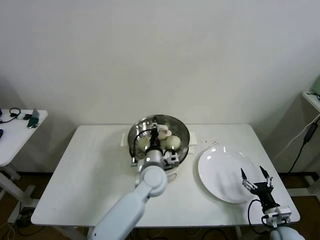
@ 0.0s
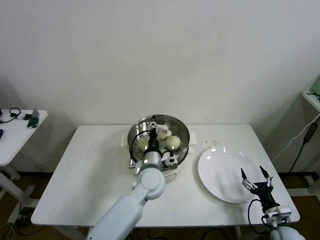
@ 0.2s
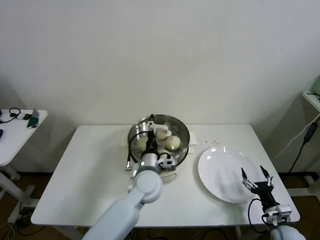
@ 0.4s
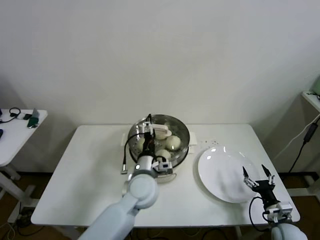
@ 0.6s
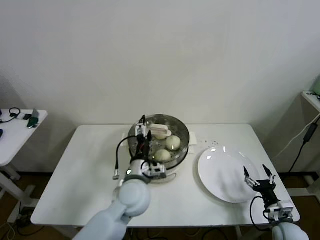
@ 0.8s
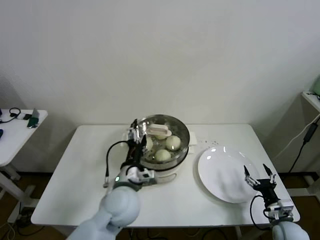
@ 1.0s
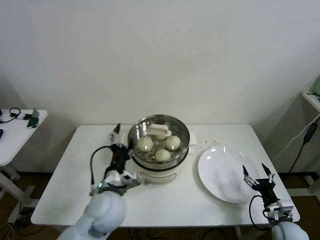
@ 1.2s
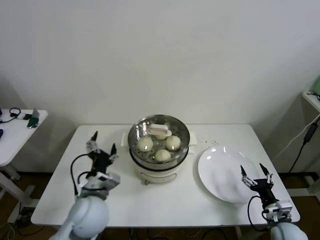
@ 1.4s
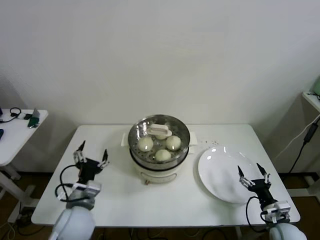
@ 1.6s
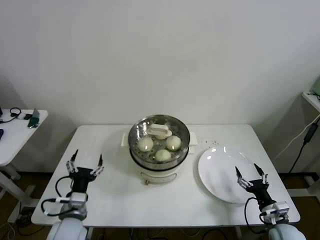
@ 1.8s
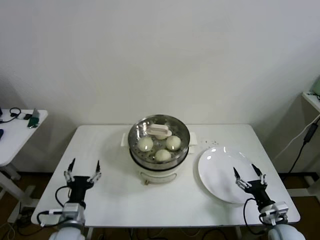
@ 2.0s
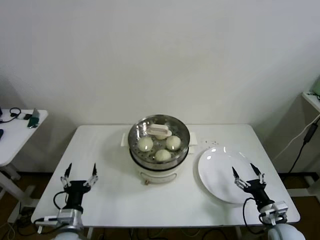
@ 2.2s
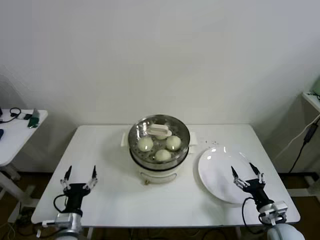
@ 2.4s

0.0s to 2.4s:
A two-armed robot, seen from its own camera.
0.0s to 1.2s: The left gripper shifts about 15 cm to the left and backward, and opens up.
1.2s to 2.4s: The left gripper is displaced to the left, downward and backward by approximately 20 cm.

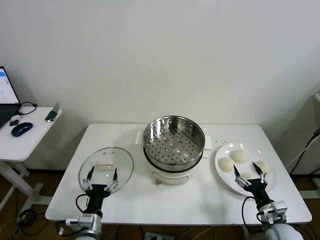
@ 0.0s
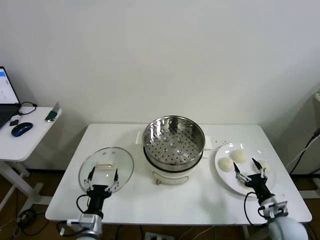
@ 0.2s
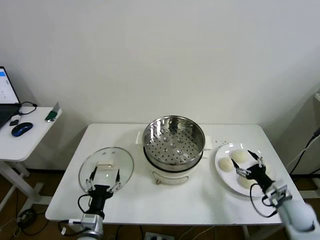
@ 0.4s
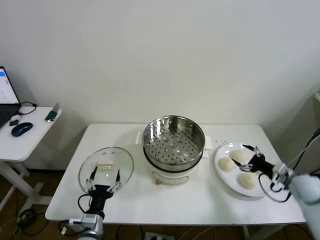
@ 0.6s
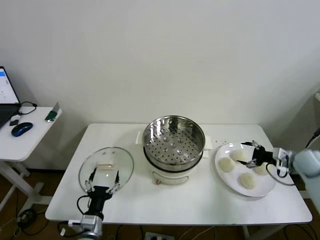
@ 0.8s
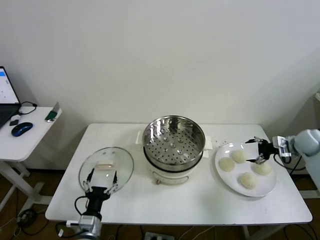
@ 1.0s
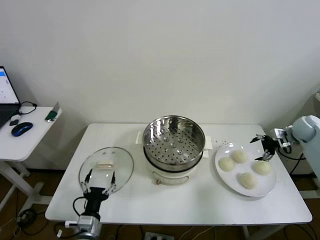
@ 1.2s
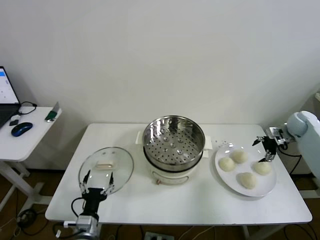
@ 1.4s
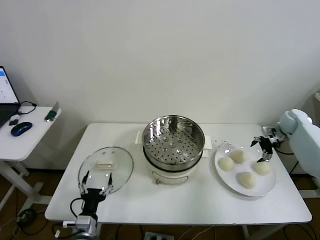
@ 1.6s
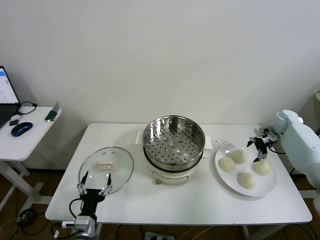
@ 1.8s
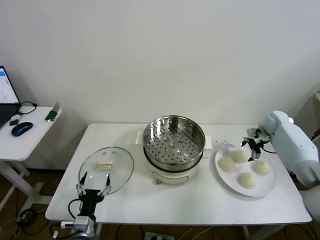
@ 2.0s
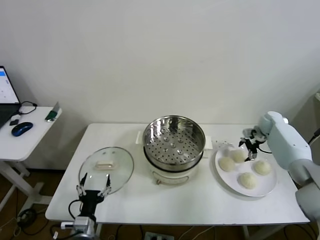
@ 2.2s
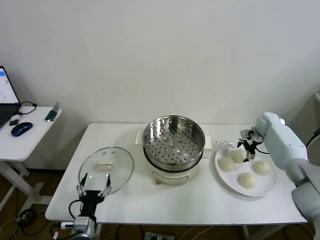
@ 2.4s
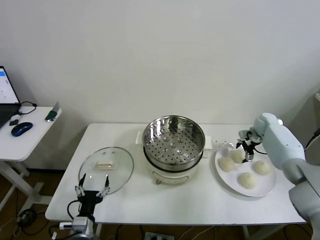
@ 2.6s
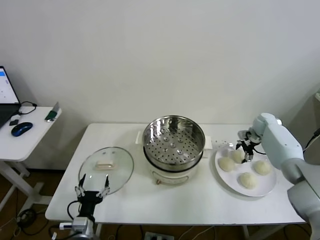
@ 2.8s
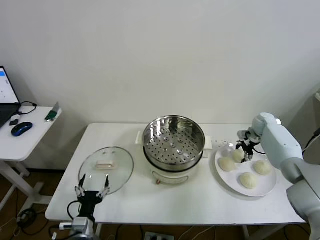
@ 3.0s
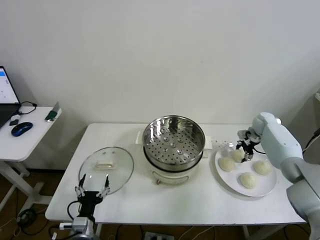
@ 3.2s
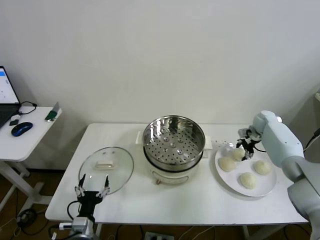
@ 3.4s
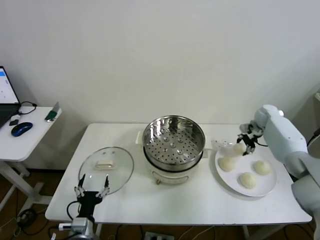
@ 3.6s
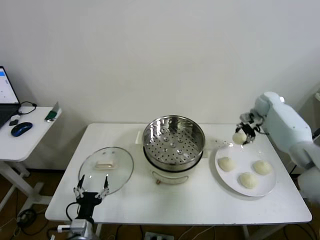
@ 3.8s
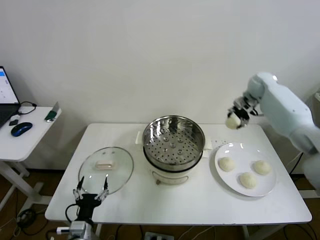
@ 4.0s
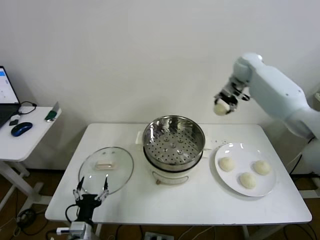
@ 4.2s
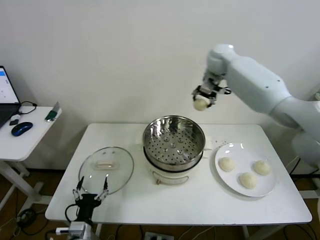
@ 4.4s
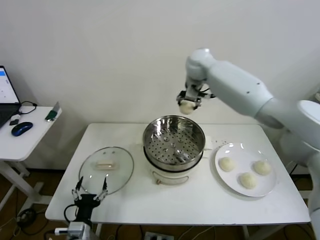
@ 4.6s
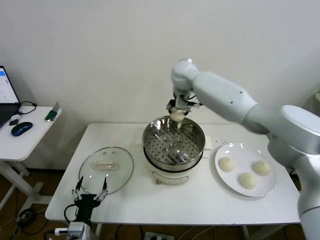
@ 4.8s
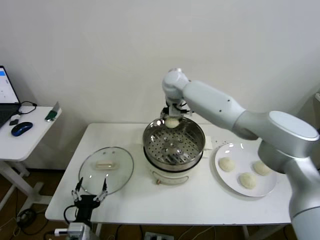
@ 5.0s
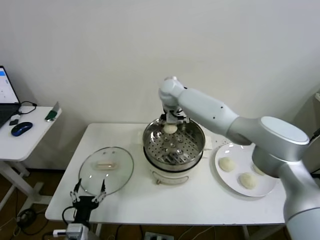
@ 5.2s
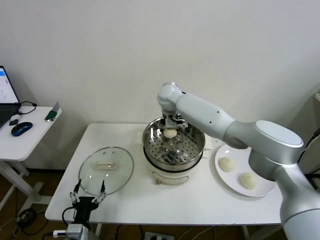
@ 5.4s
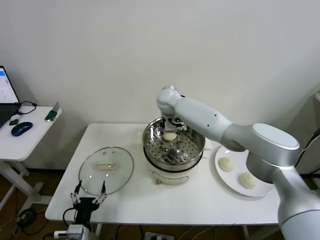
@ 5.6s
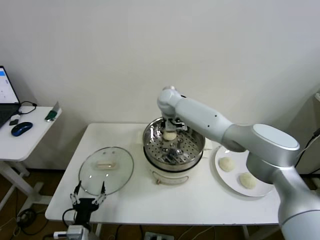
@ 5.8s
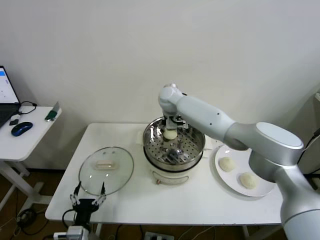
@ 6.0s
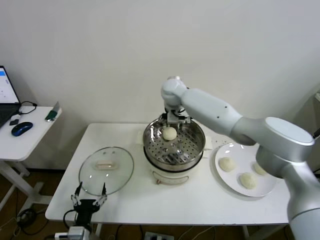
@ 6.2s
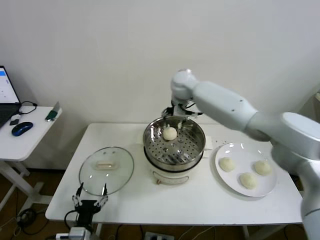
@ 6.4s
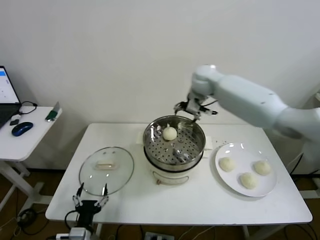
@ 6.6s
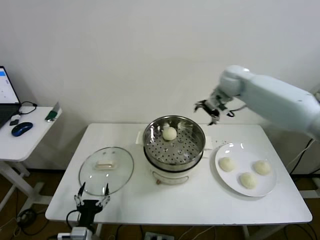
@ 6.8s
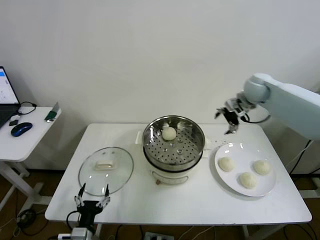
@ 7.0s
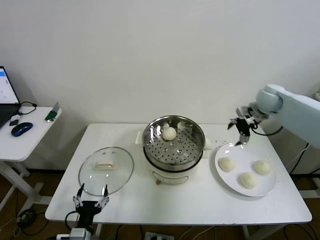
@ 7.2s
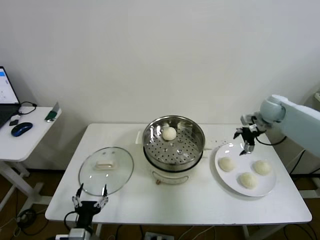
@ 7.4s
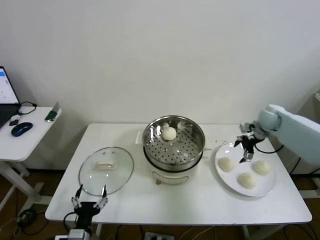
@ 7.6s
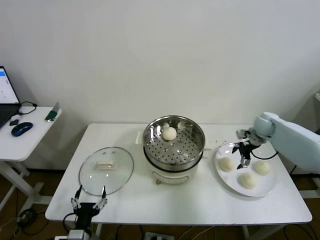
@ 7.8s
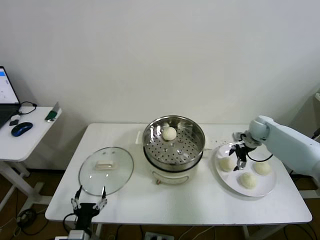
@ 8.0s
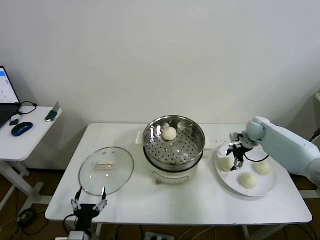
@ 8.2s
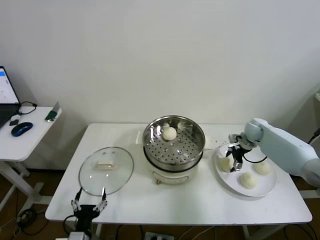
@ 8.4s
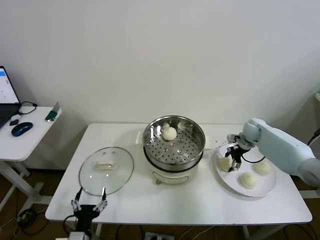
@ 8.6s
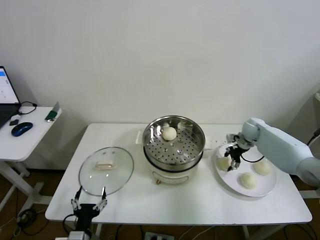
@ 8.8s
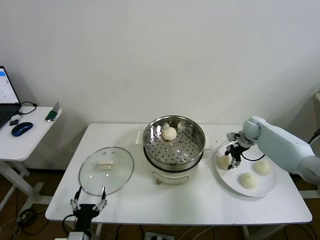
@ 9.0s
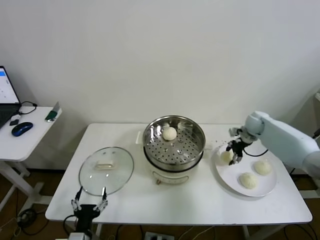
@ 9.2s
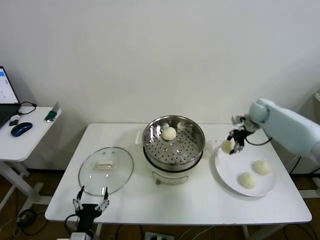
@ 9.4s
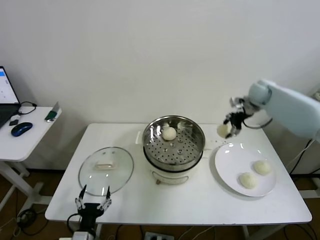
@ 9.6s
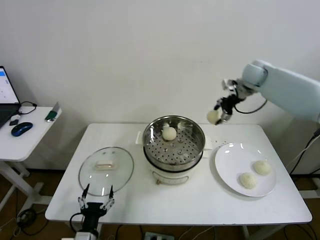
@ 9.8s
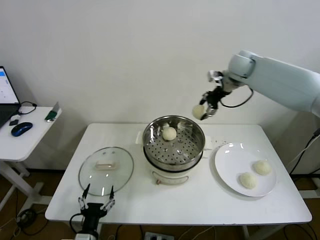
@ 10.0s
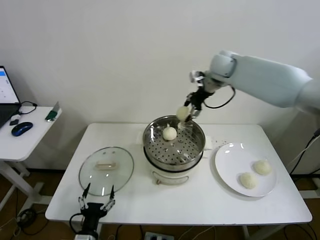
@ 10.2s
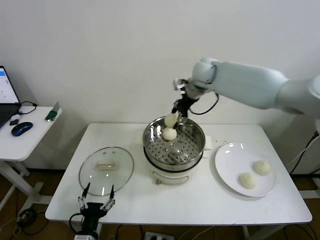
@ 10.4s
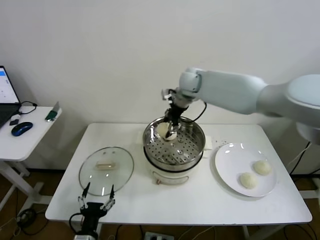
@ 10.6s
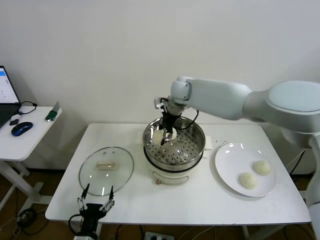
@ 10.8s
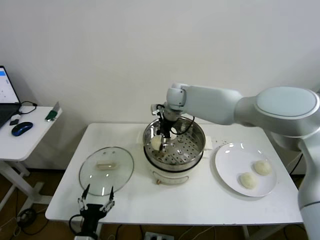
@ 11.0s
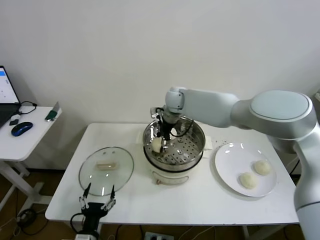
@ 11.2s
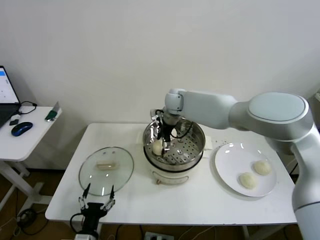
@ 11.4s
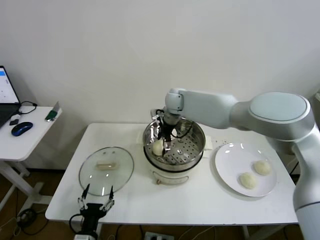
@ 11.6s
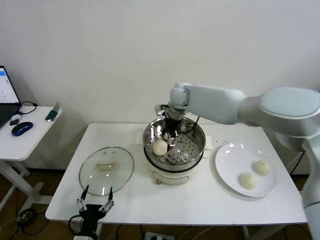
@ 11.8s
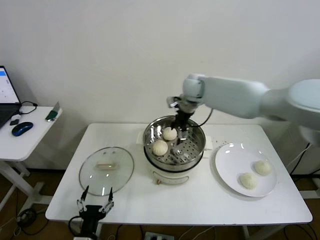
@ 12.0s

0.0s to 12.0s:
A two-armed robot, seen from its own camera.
Step, 0.0s to 3.0s: Grasp the baozi in the plate with right gripper.
Step, 3.2s to 6.0s: Place the baozi on the steamer with right gripper.
Step, 6.2s to 8.8s: Grasp the baozi in the plate with right gripper.
Step, 9.0s to 11.4s: Place the baozi on the steamer with right gripper.
1.6s to 3.0s: The right gripper is displaced to the left by approximately 5 cm, and closes.
3.0s to 4.4s: The right gripper heads upward and to the left, covering roughly 40 cm.
4.4s to 6.0s: The right gripper travels to the left and downward by roughly 20 cm, and opens up.
6.0s to 7.6s: The right gripper moves to the right, some 40 cm.
7.6s to 9.0s: The right gripper travels downward by some 5 cm, and closes.
9.0s to 10.4s: The right gripper is displaced to the left and upward by about 35 cm.
10.4s to 12.0s: The right gripper opens its fingers.

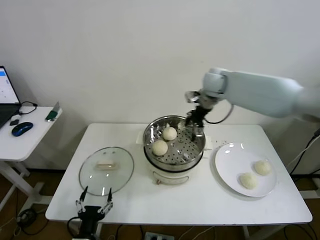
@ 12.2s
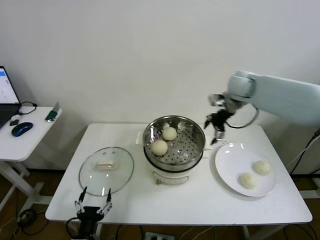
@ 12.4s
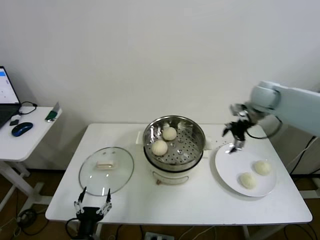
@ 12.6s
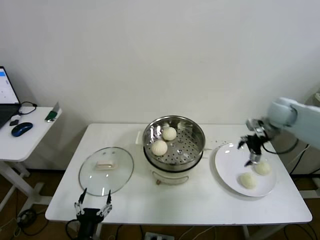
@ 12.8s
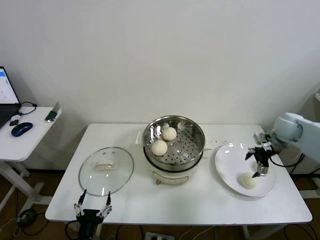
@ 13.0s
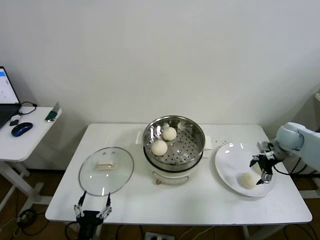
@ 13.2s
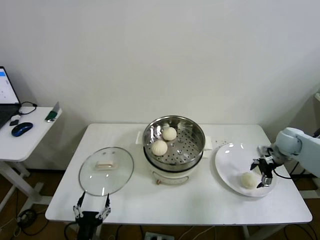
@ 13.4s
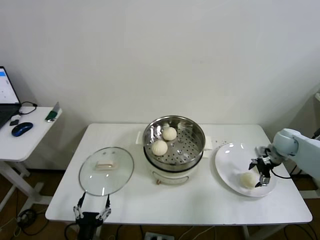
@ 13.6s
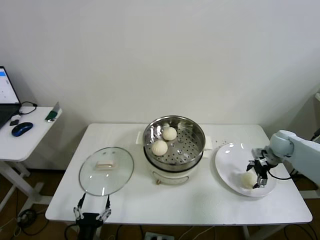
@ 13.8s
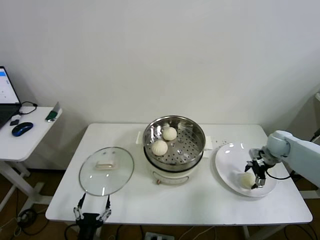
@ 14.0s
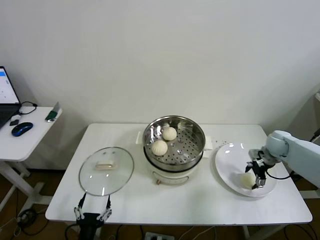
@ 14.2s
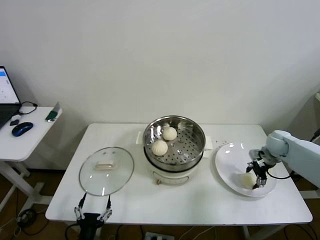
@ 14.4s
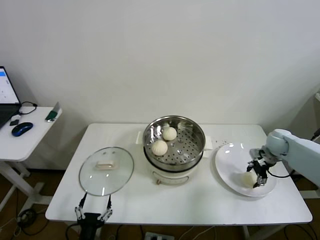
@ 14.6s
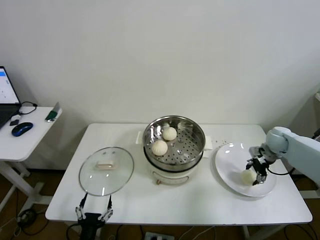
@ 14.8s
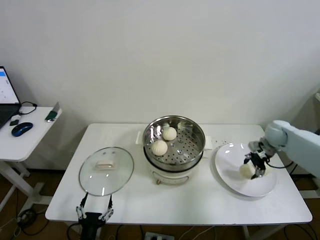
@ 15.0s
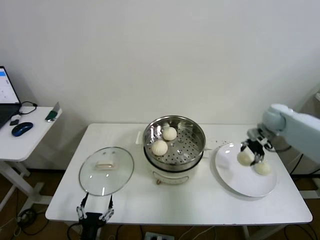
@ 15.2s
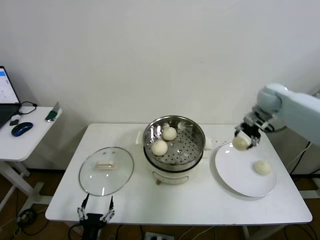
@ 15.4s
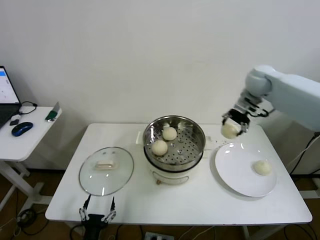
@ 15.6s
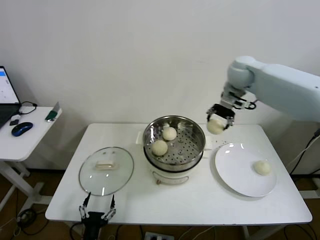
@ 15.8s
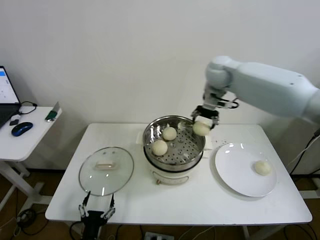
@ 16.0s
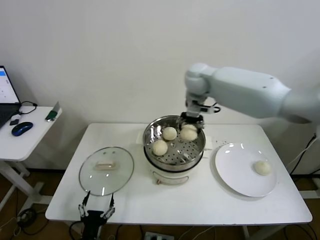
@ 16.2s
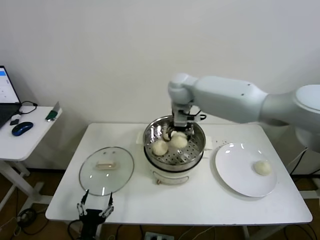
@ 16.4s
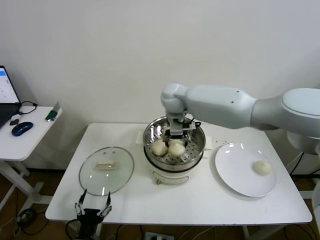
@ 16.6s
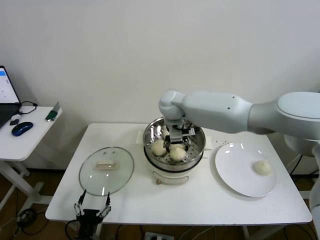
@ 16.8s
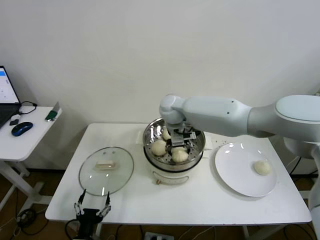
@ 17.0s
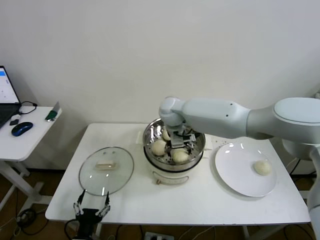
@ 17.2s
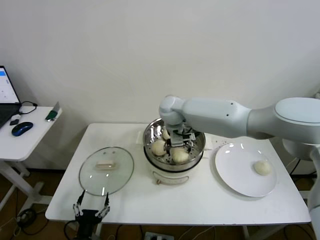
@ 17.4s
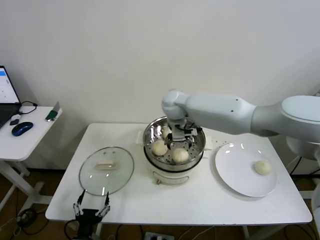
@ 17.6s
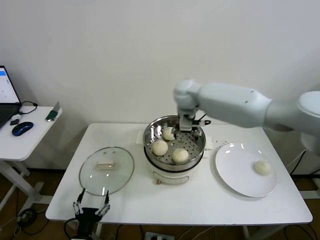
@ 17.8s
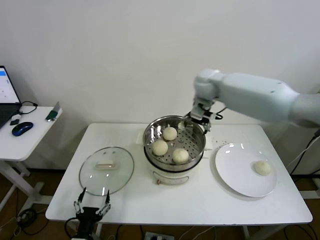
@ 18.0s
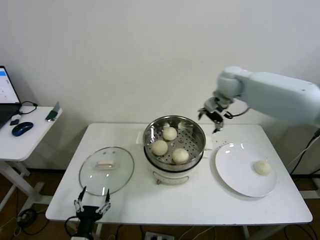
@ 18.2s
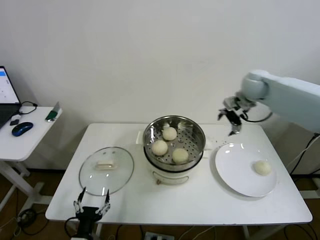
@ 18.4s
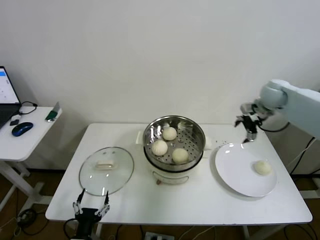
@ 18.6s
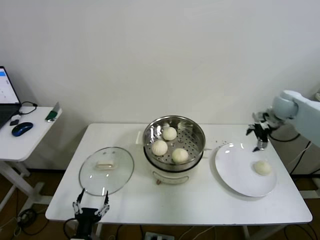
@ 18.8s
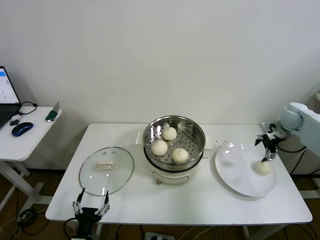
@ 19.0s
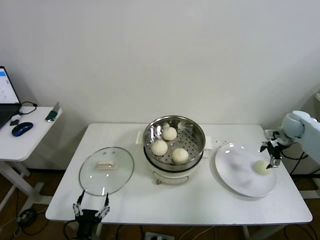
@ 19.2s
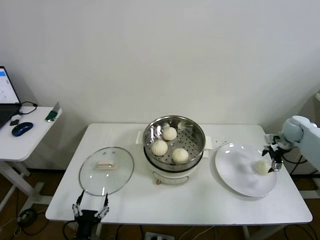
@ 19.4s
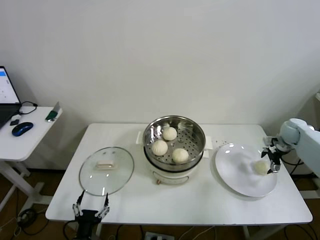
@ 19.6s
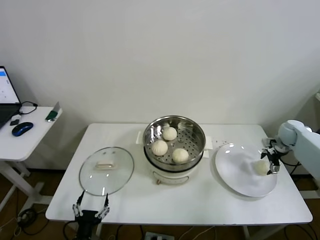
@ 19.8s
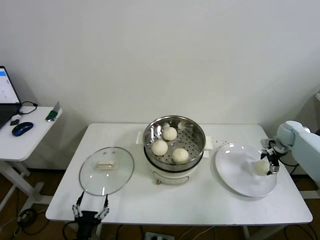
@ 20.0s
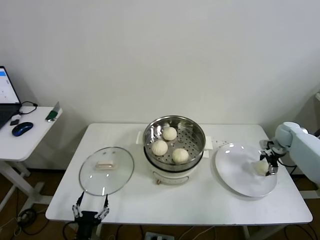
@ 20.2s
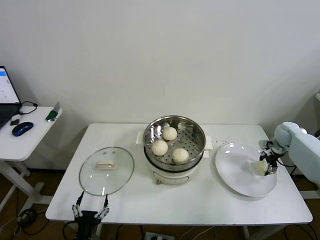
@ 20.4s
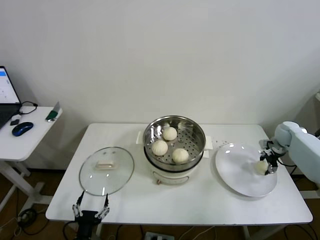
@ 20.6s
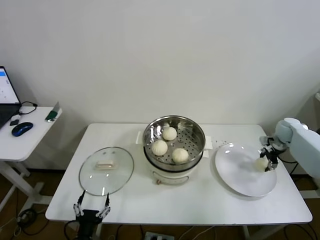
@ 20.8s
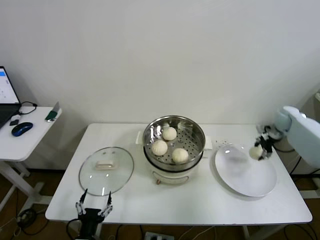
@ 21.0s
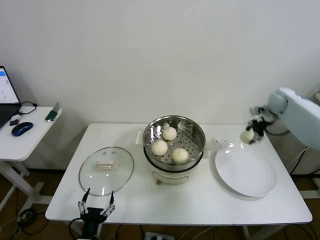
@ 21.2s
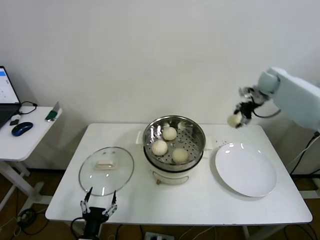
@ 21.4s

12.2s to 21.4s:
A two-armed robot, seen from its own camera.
Step, 12.2s to 14.4s: Grasp the baozi in the plate with right gripper.
Step, 14.6s to 17.6s: Place the baozi on the steamer with right gripper.
Step, 17.8s to 20.4s: Grasp the baozi in the plate with right gripper.
12.2s to 13.8s: The right gripper heads to the right, downward and backward, covering some 35 cm.
13.8s to 15.2s: The right gripper goes approximately 10 cm upward and forward, and closes.
15.2s to 16.8s: The right gripper shifts roughly 40 cm to the left.
16.8s to 18.4s: The right gripper goes some 30 cm to the right, and opens up.
18.4s to 19.8s: The right gripper goes approximately 30 cm downward and to the right.
19.8s to 21.4s: The right gripper moves upward, to the left and forward, some 25 cm, and closes.
